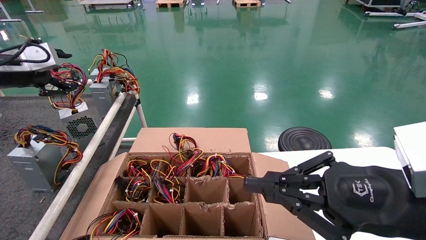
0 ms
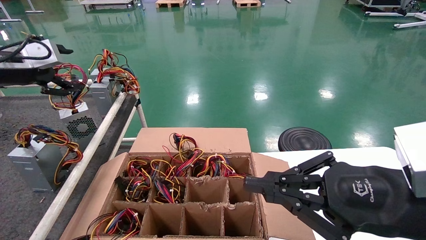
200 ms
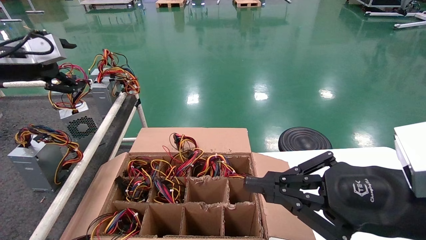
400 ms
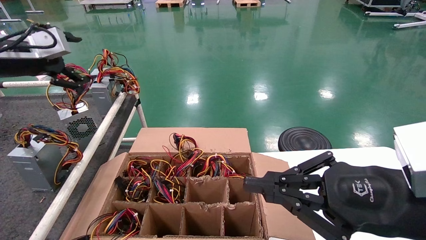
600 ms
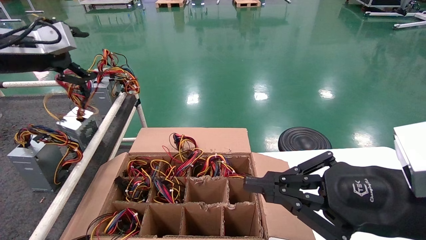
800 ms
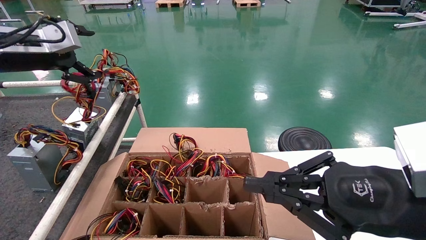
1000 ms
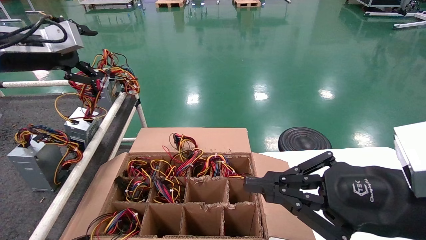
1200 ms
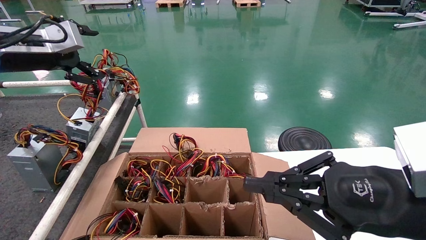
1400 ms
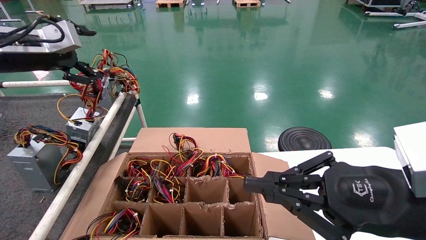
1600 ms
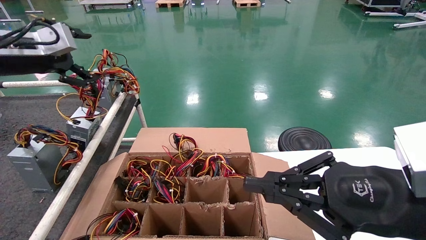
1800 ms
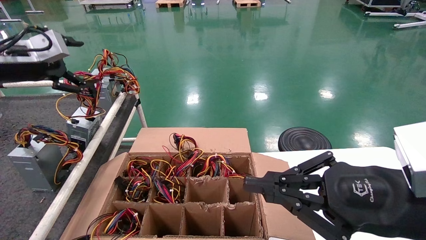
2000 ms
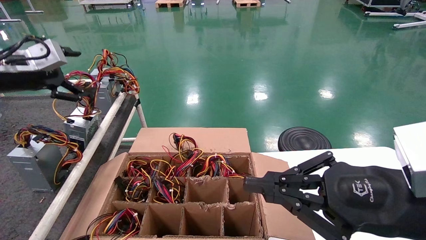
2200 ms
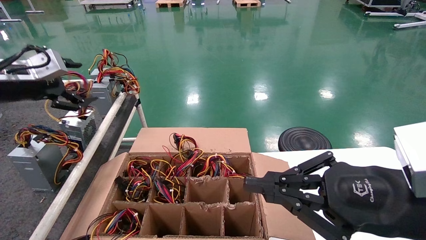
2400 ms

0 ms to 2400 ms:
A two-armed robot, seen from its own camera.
0 ms to 1200 ms: The left gripper moves to the right, roughly 5 cm, and opens up.
1200 ms to 2400 ms: The left gripper shifts roughly 5 cm downward.
